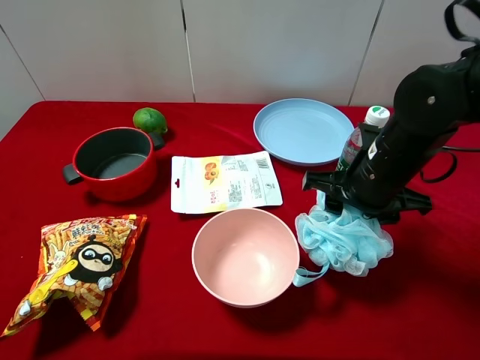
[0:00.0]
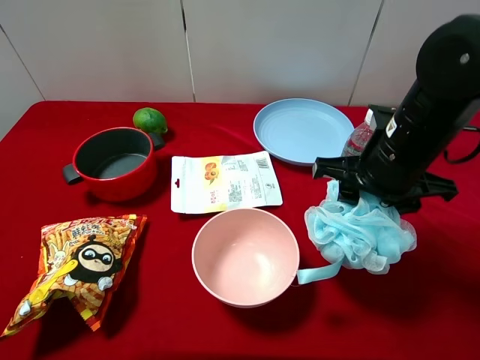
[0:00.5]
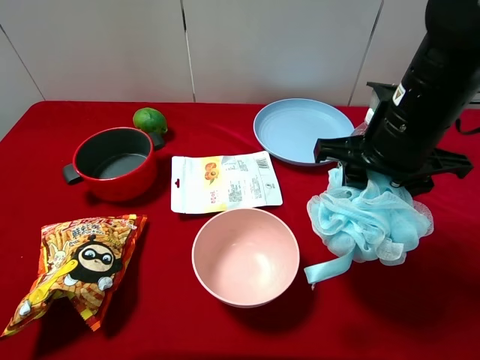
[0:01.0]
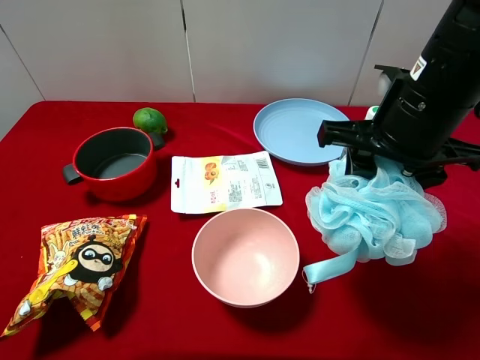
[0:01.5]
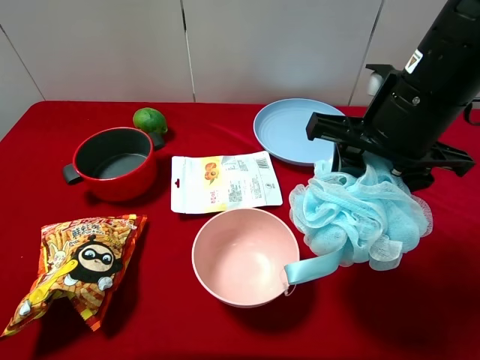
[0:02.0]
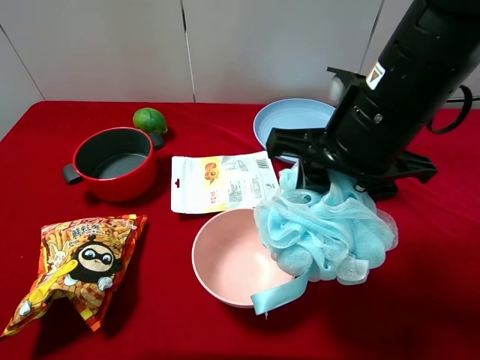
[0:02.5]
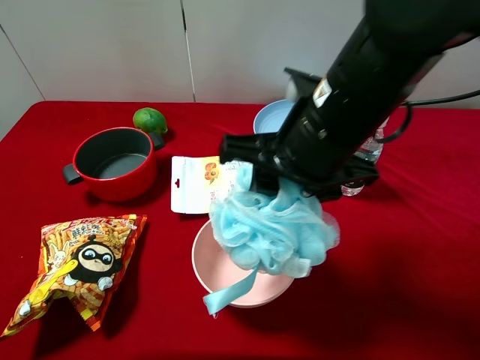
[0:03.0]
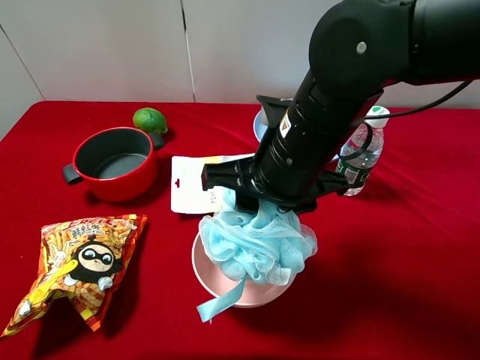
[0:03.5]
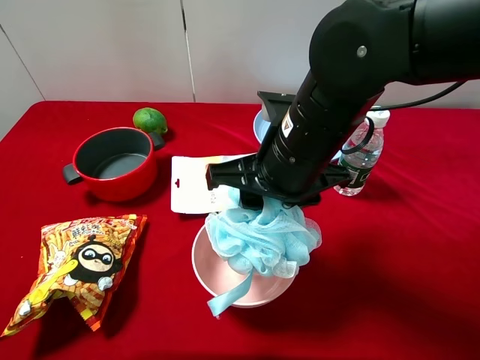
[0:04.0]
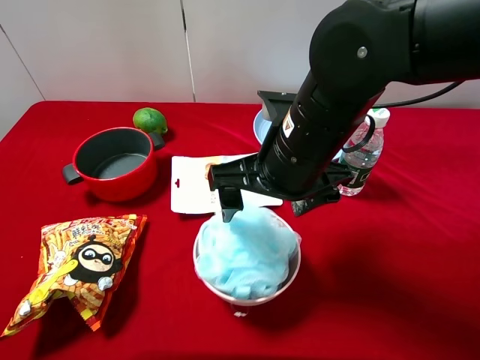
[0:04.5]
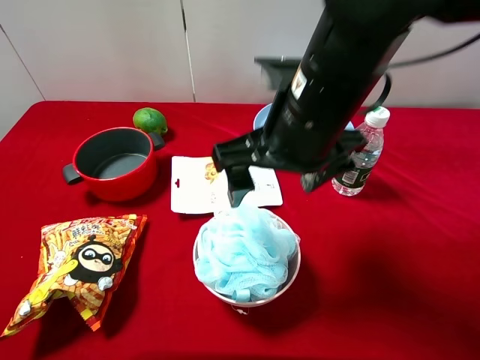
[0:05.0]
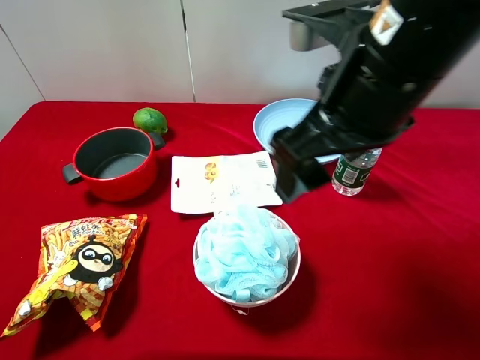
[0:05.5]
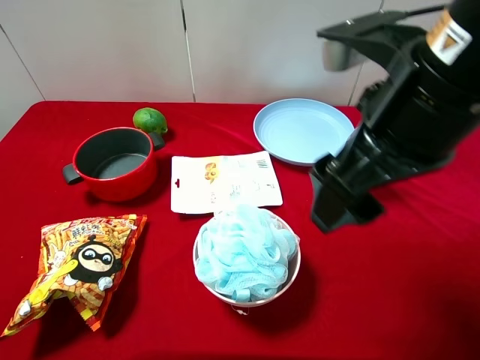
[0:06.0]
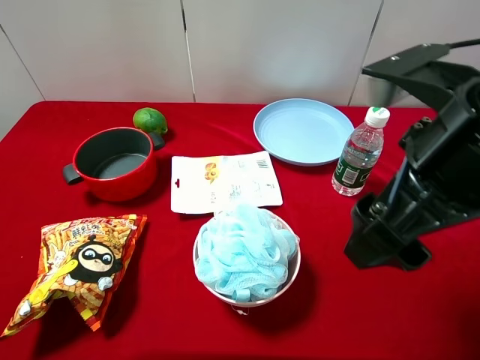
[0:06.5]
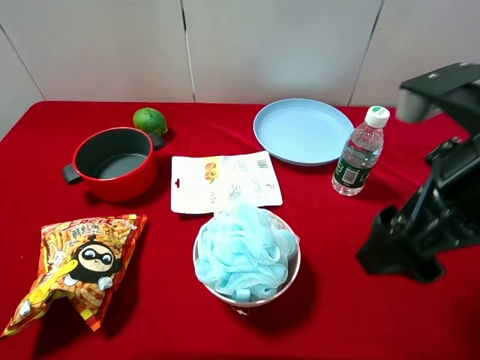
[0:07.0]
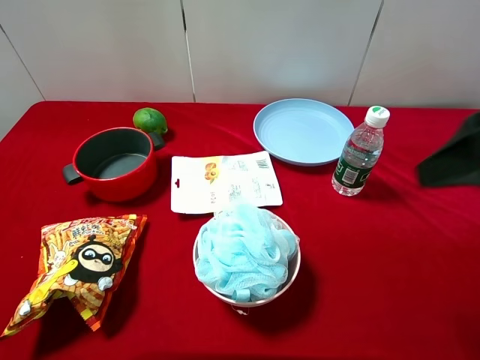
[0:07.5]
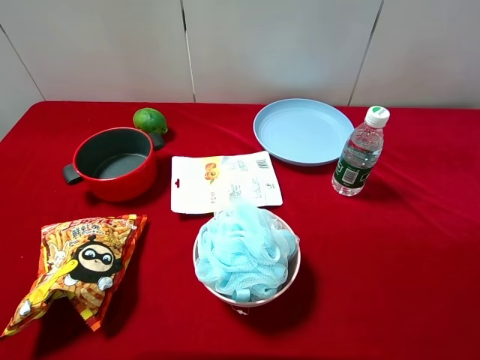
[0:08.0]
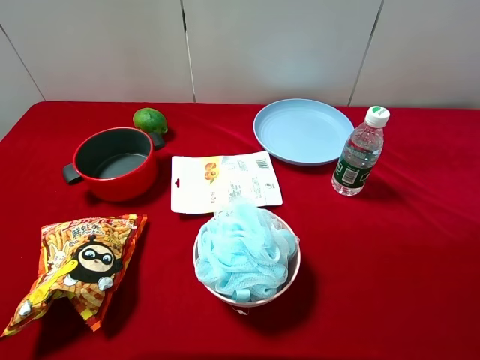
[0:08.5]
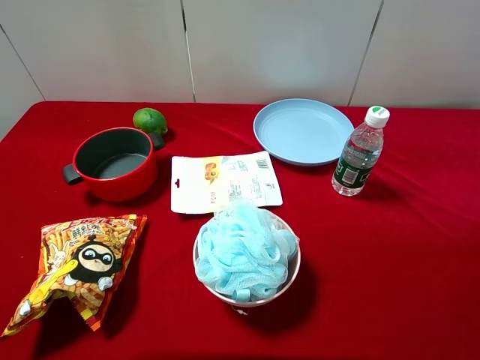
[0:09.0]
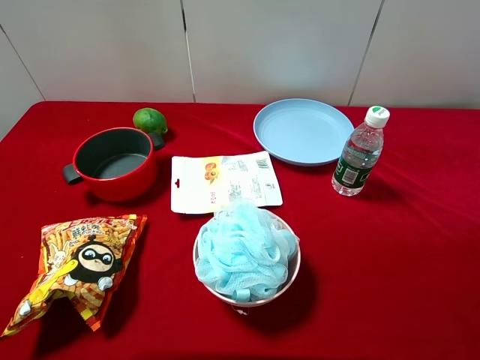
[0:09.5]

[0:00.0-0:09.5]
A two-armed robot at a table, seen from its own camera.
Task of the whole recording: pick up an item with a gripper and place it in a random container on the desktop.
0:00.0 to 0:02.0: The right gripper shifts about 10 cm upward.
0:02.0 to 0:04.0: The right gripper moves to the left, approximately 10 cm.
0:04.0 to 0:05.5: The right gripper goes roughly 10 cm upward, and opens up.
0:05.5 to 0:07.5: The right gripper travels to the right by roughly 15 cm.
0:07.5 to 0:09.5: The right gripper travels backward by approximately 15 cm.
